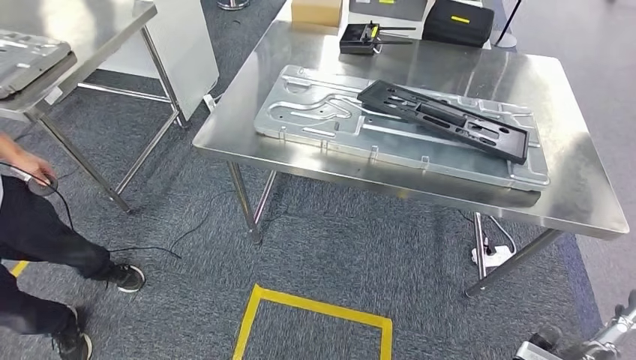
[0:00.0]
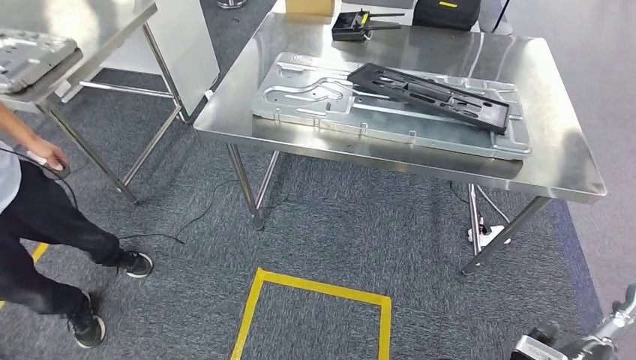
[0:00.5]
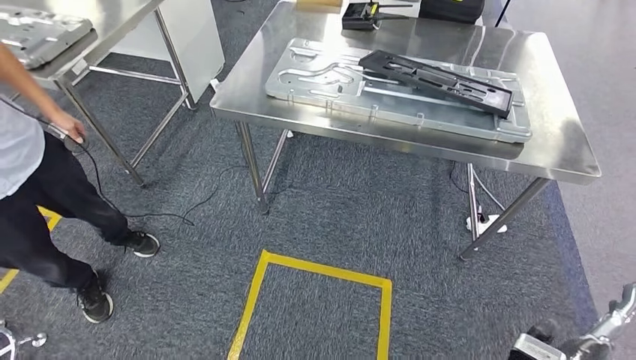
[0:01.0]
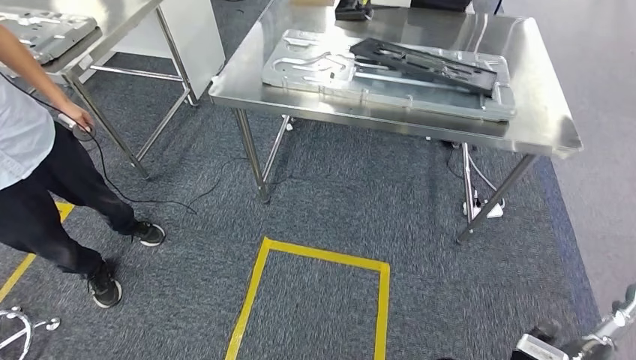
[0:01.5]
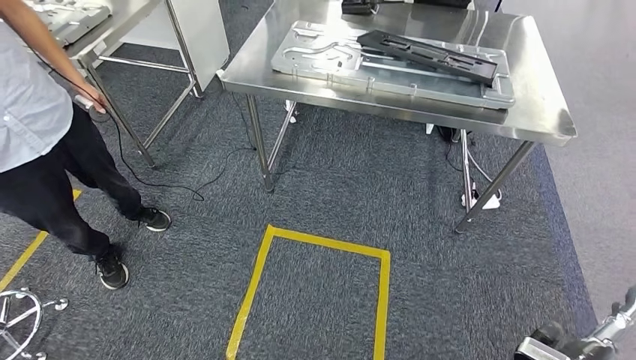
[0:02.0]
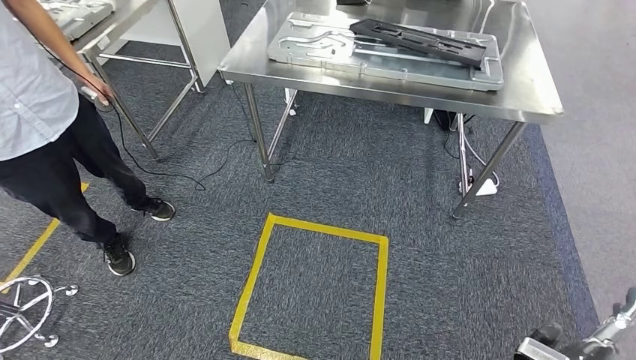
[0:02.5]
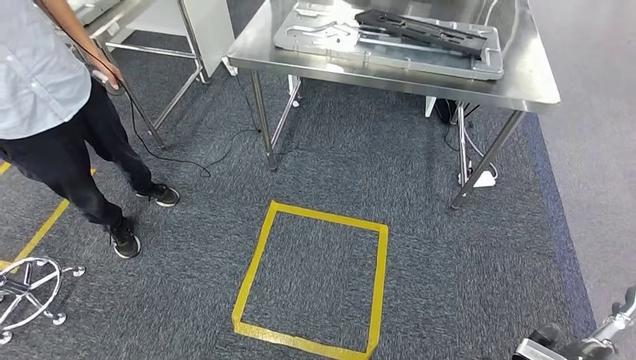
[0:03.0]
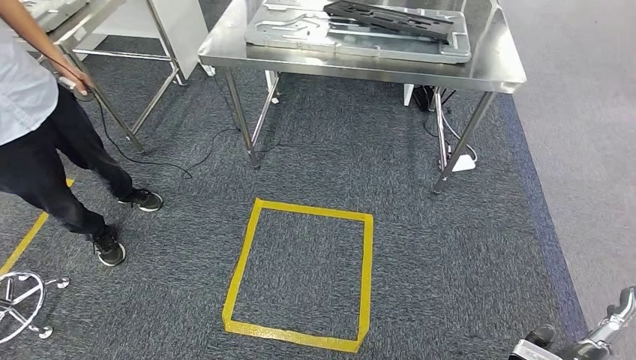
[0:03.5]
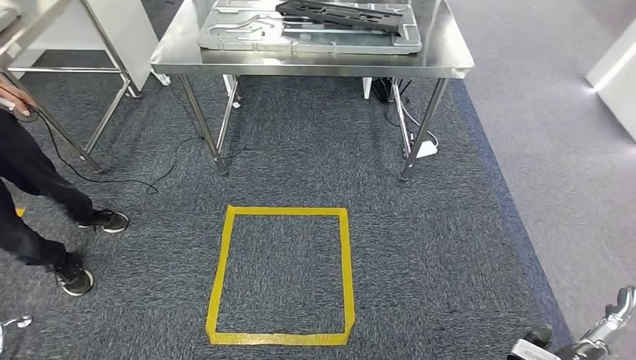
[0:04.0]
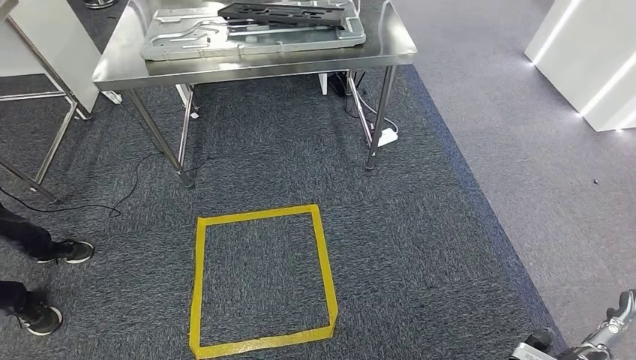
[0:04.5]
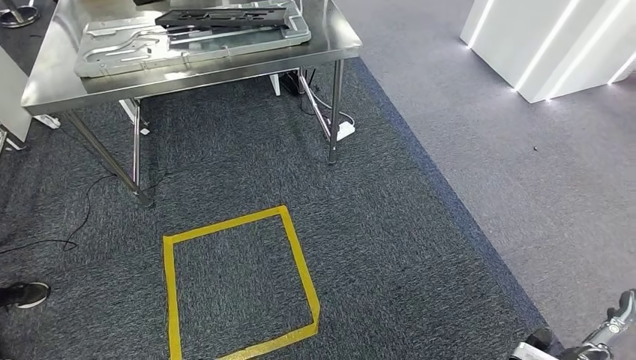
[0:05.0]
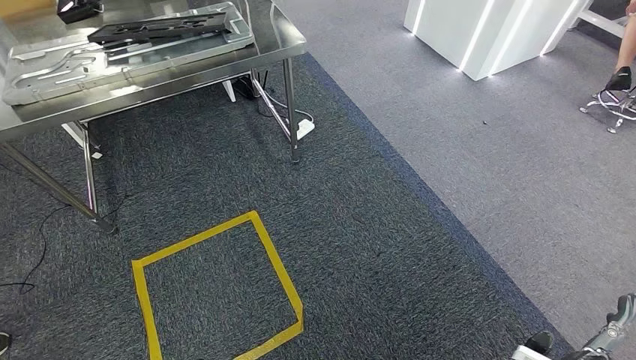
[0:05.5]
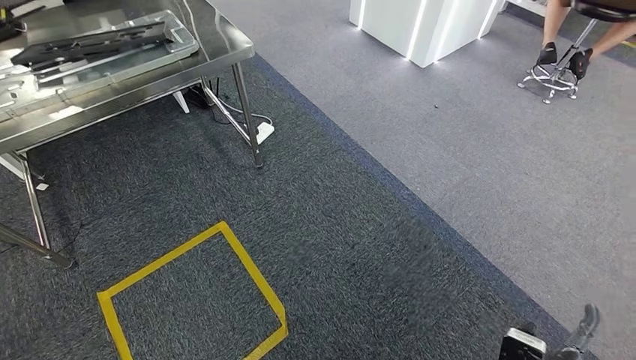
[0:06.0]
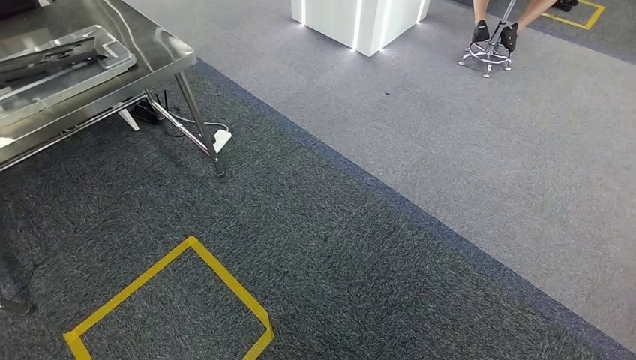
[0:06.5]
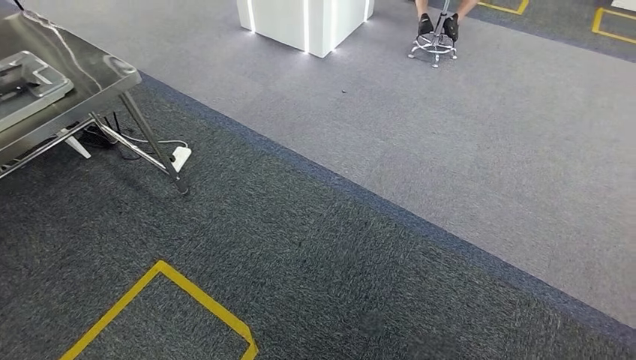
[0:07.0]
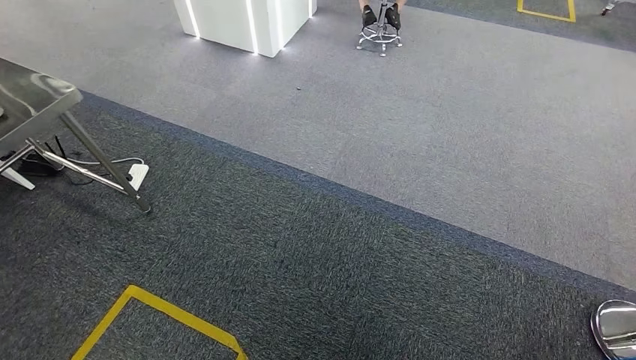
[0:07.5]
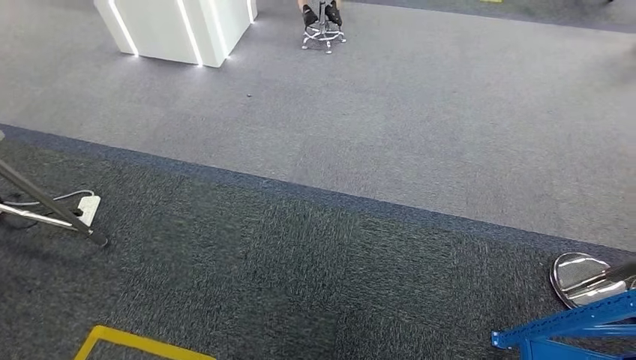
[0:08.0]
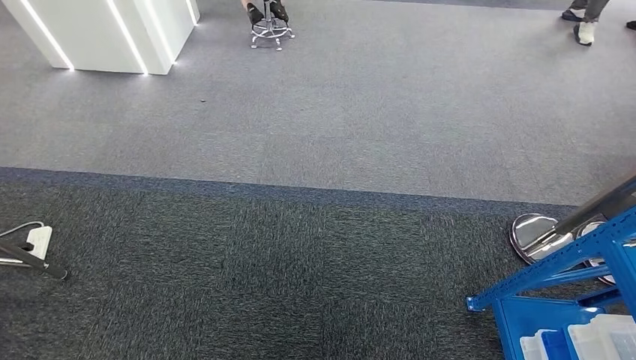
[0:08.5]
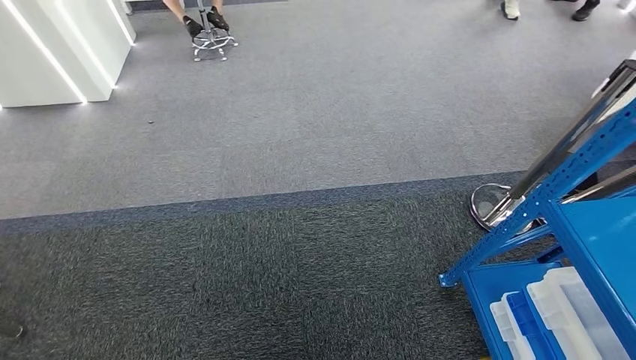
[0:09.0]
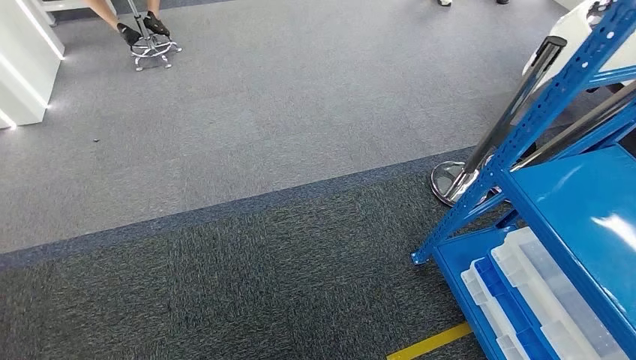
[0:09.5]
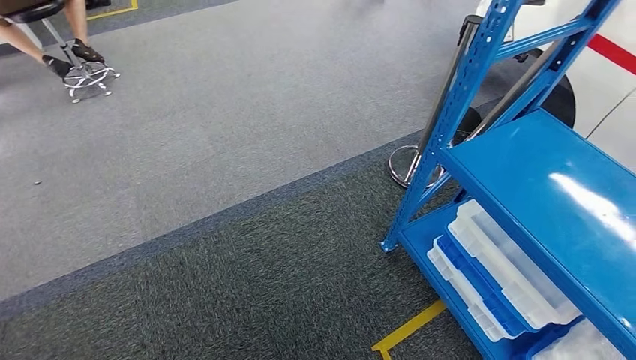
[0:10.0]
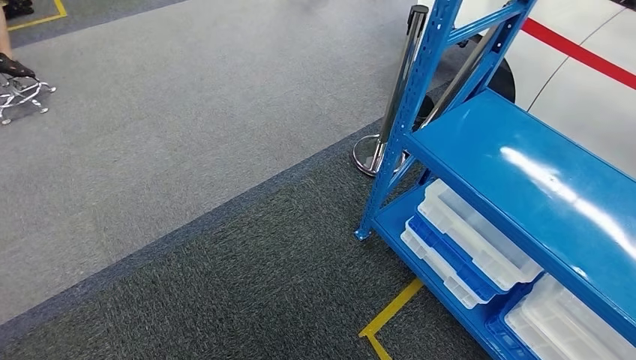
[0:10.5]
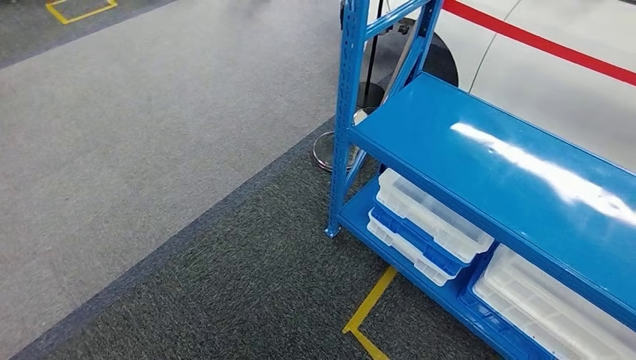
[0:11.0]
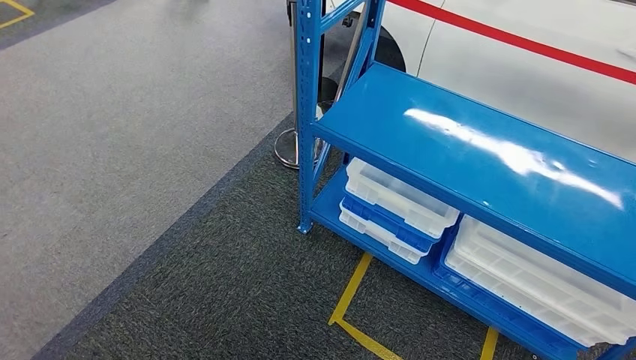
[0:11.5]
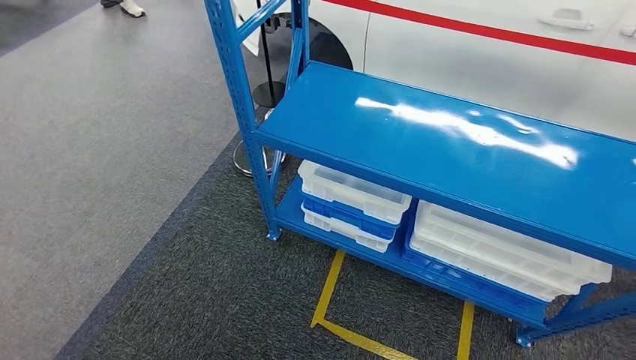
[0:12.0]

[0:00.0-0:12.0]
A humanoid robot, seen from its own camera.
Step, 0:00.0 to 0:02.5: Insert the large parts into the corresponding slots on the workbench.
Step, 0:03.5 to 0:12.0: Return to the initial position at the shelf.

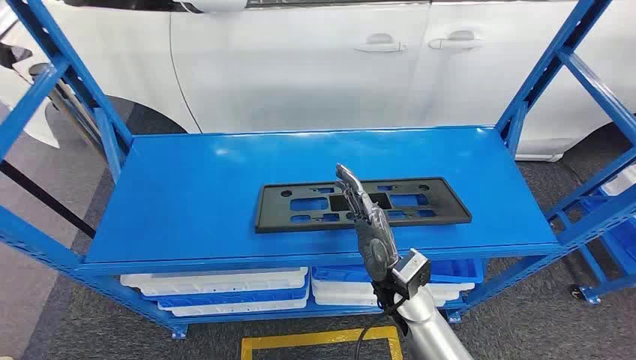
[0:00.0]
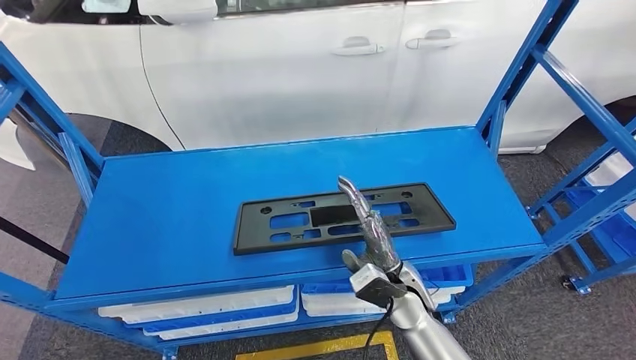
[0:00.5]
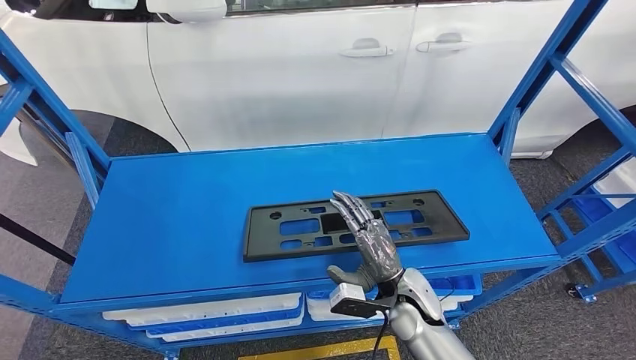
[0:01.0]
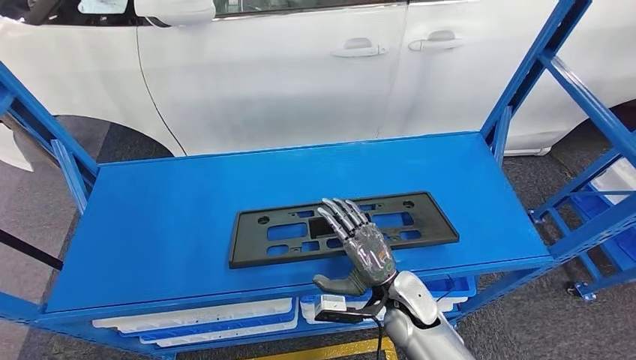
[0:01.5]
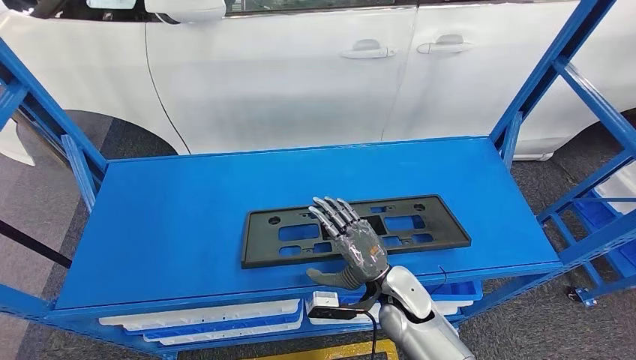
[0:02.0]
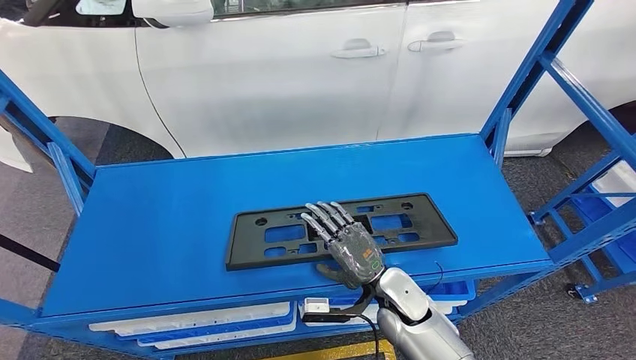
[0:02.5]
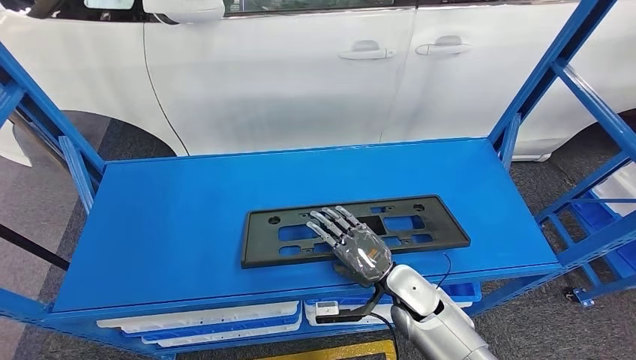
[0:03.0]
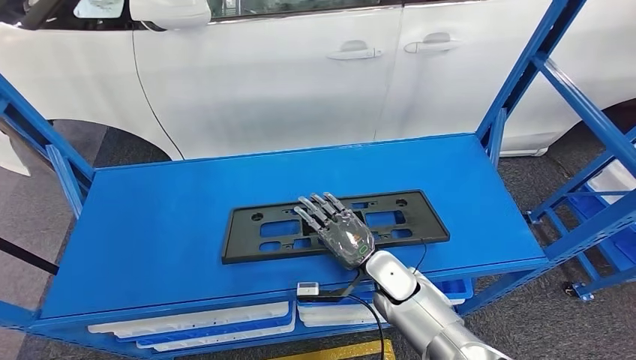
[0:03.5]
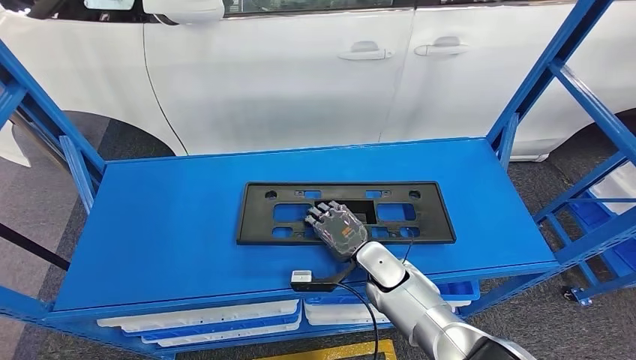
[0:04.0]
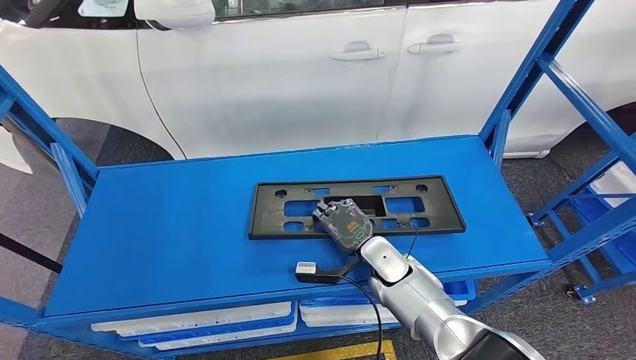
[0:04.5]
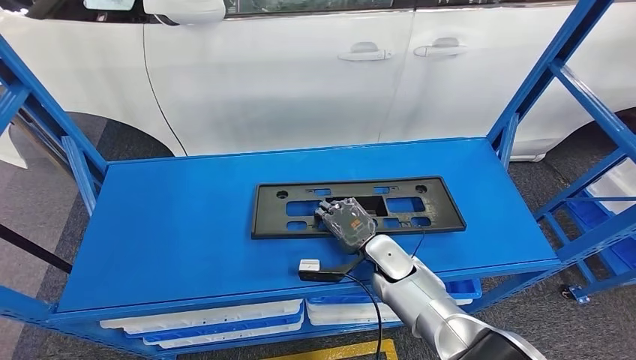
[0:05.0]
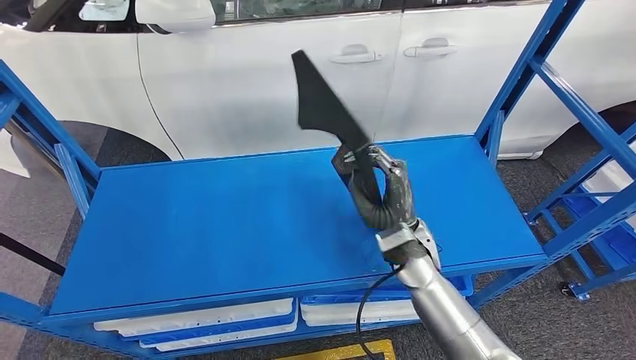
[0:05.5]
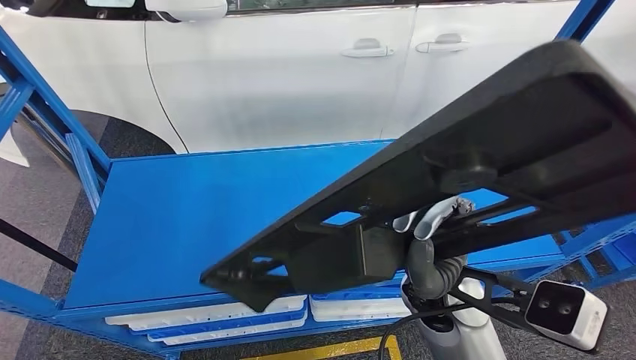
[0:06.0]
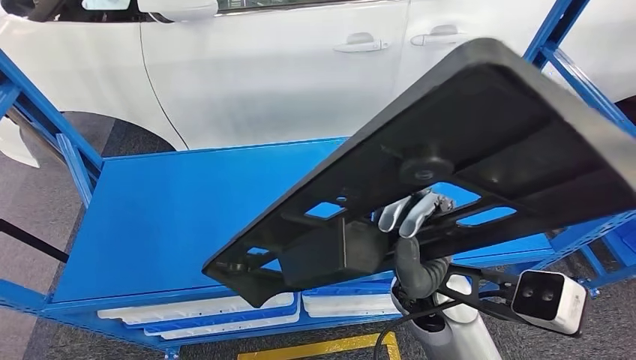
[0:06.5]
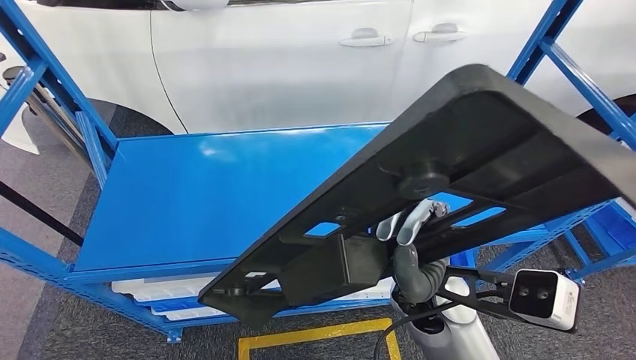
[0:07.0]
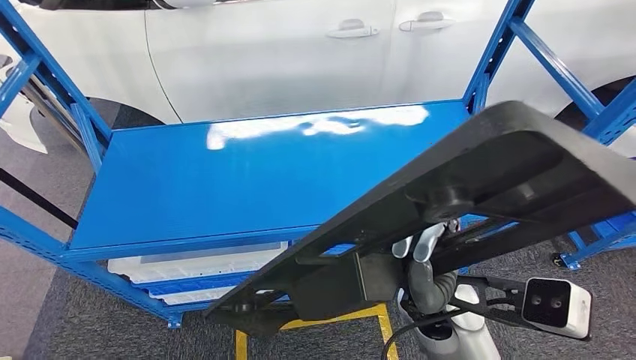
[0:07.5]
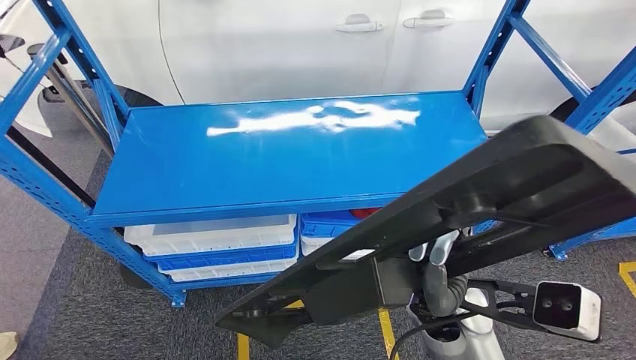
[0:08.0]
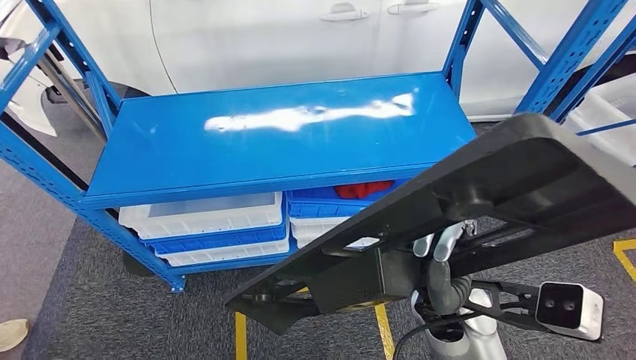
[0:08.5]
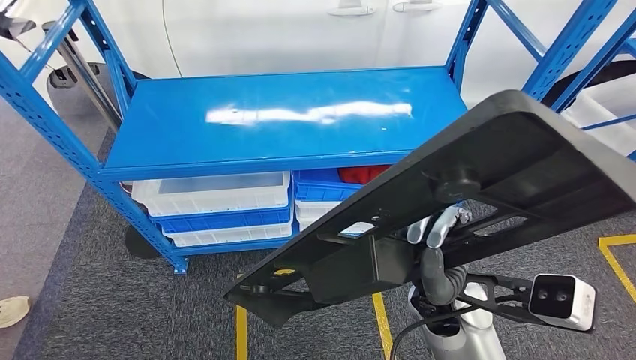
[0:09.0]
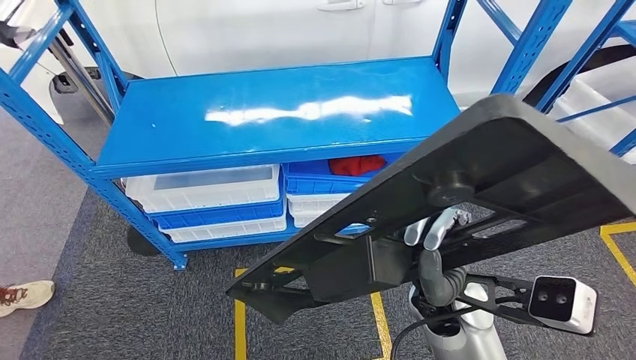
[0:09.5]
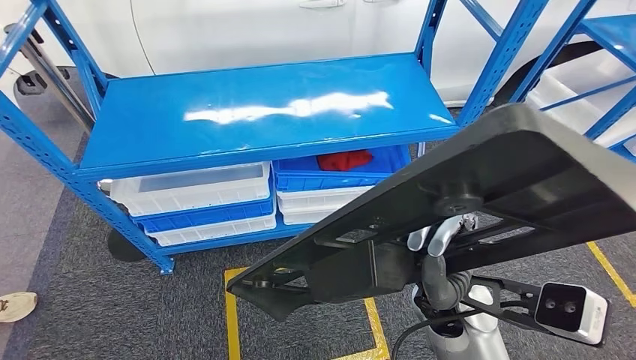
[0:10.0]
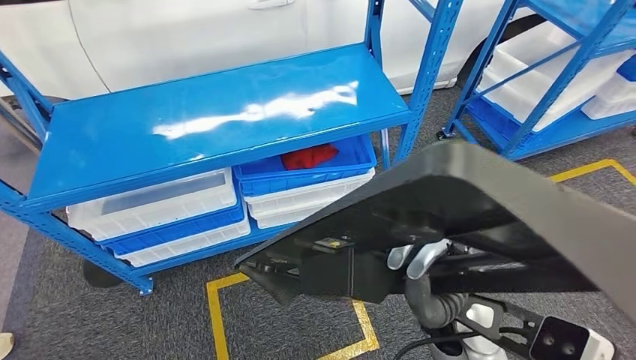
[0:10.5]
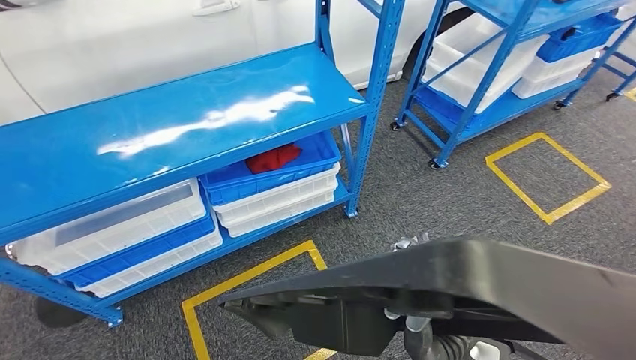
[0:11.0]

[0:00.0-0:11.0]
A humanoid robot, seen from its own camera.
Step, 0:00.0 to 0:06.5: Pick up the large parts from the shelf.
